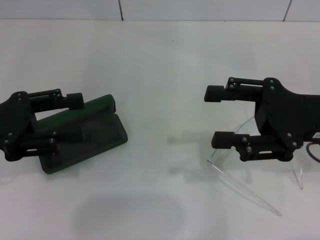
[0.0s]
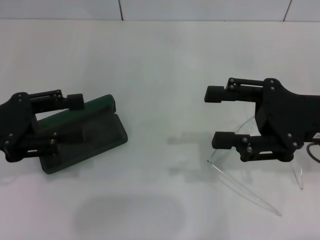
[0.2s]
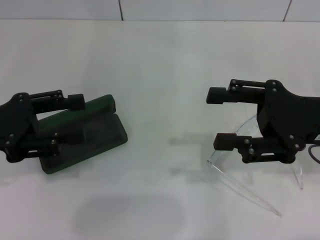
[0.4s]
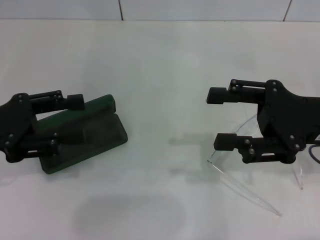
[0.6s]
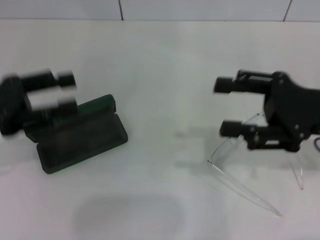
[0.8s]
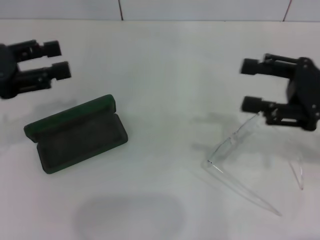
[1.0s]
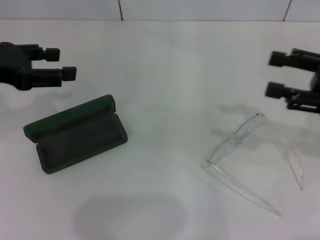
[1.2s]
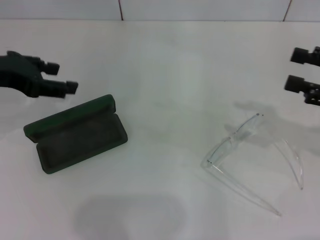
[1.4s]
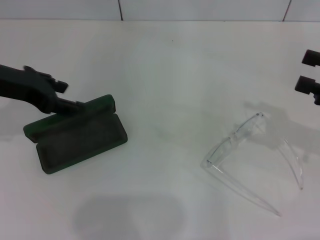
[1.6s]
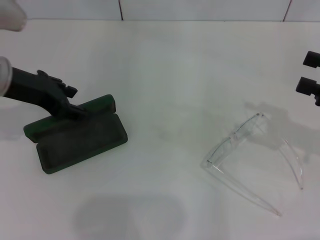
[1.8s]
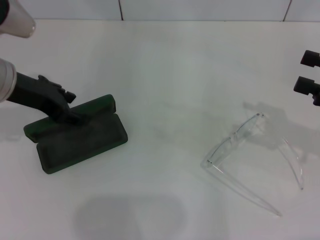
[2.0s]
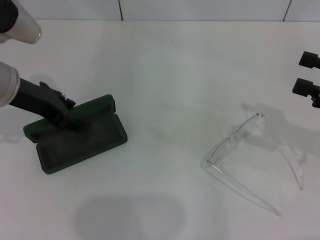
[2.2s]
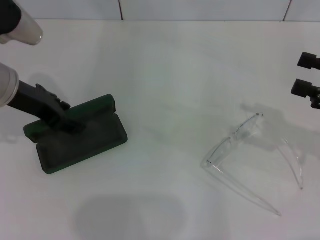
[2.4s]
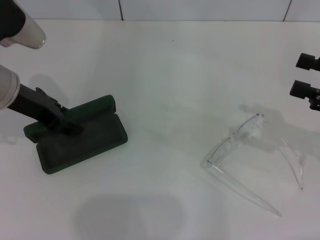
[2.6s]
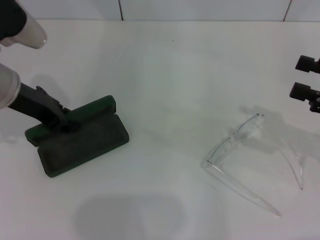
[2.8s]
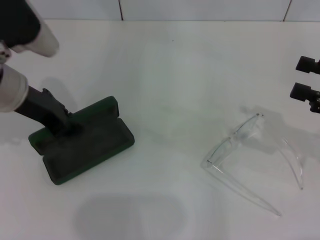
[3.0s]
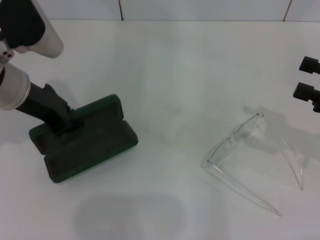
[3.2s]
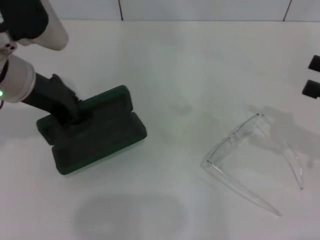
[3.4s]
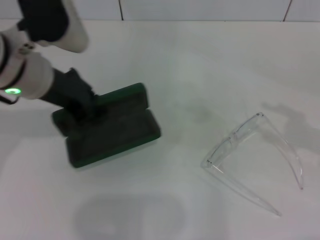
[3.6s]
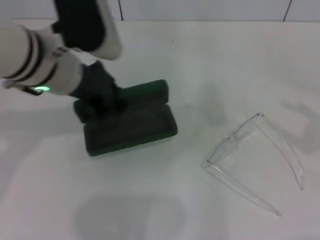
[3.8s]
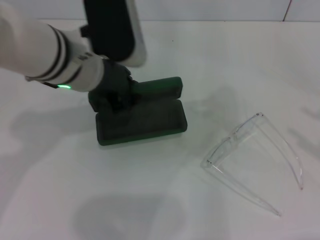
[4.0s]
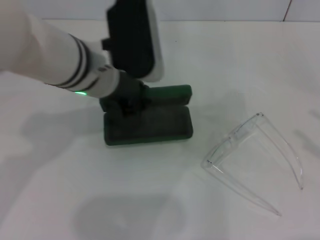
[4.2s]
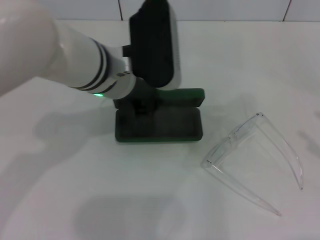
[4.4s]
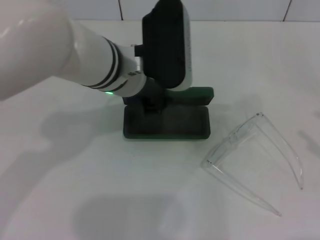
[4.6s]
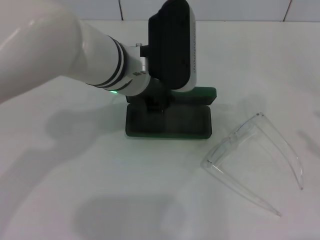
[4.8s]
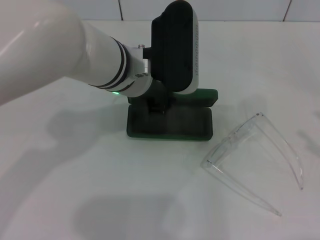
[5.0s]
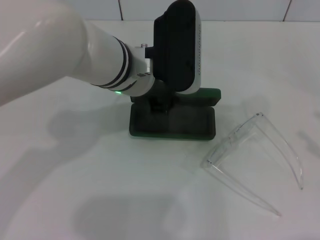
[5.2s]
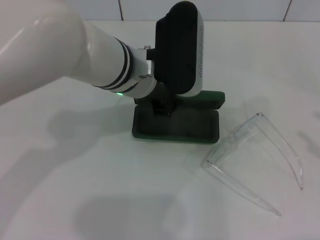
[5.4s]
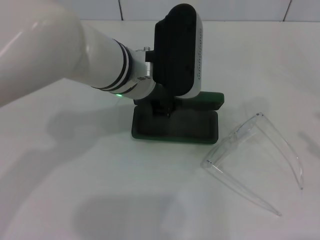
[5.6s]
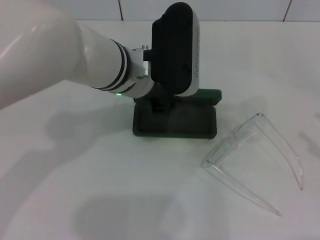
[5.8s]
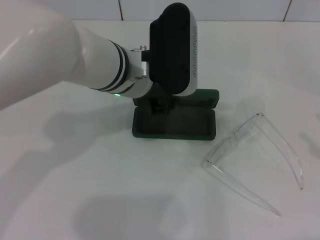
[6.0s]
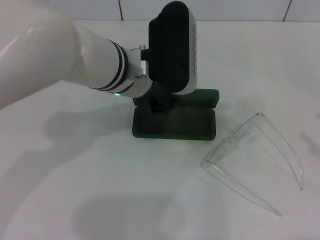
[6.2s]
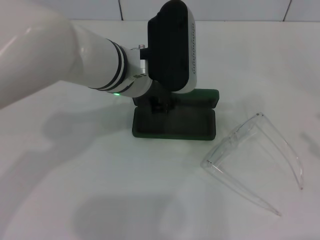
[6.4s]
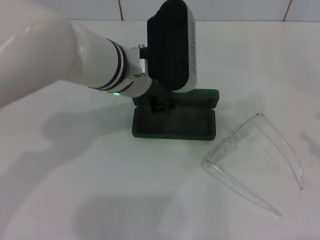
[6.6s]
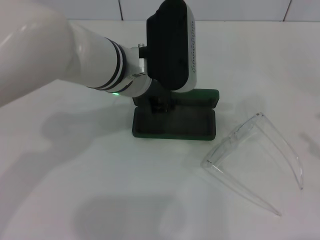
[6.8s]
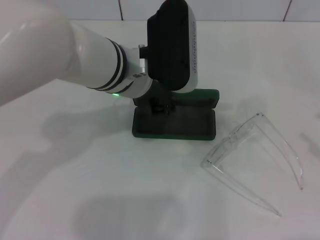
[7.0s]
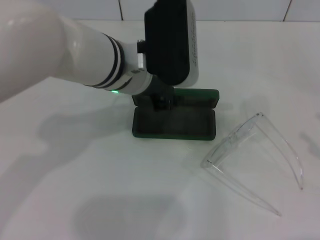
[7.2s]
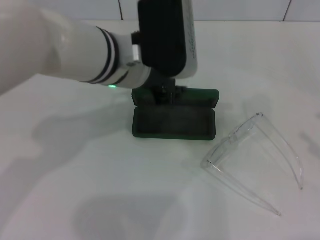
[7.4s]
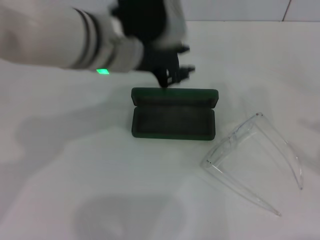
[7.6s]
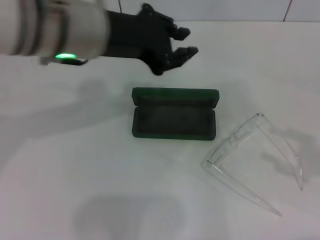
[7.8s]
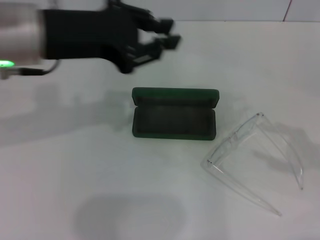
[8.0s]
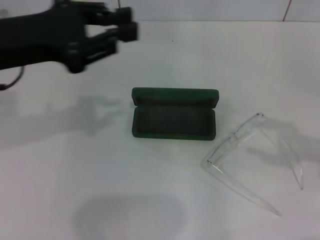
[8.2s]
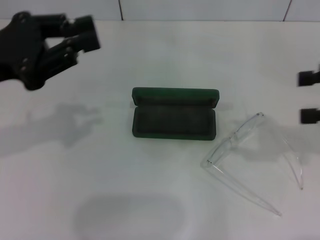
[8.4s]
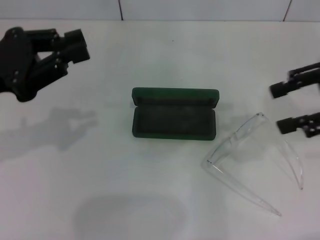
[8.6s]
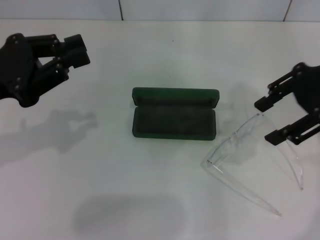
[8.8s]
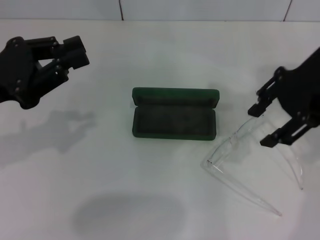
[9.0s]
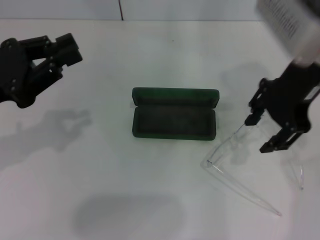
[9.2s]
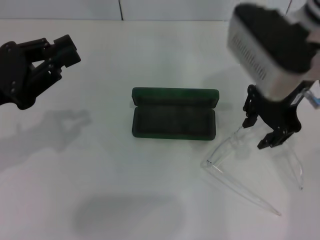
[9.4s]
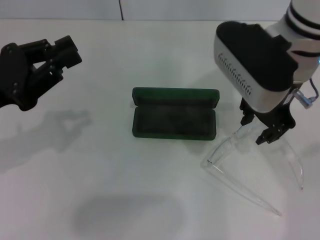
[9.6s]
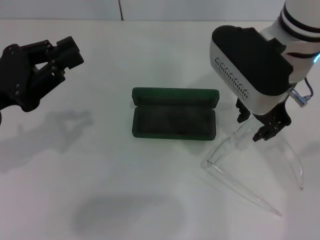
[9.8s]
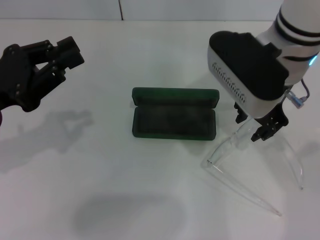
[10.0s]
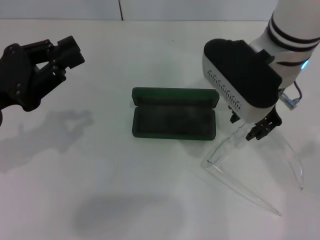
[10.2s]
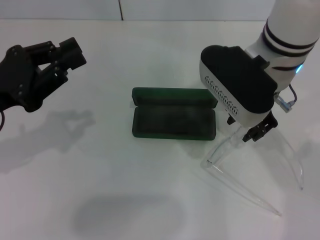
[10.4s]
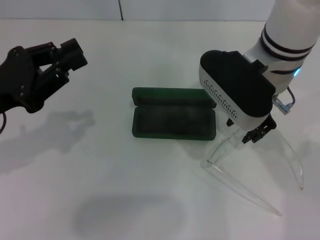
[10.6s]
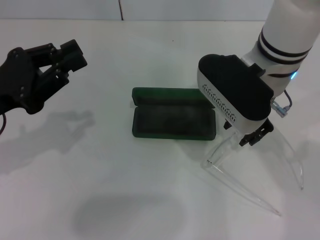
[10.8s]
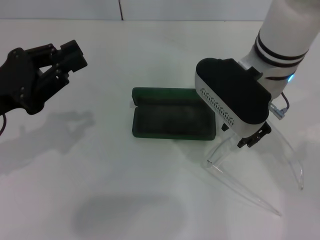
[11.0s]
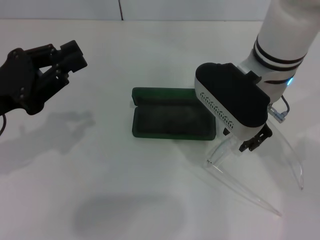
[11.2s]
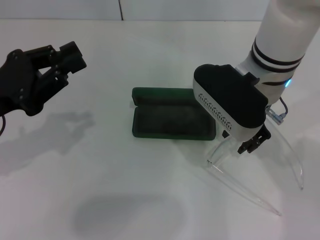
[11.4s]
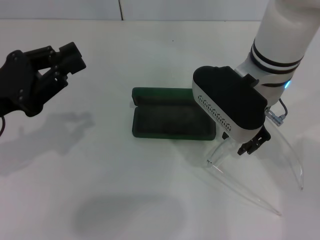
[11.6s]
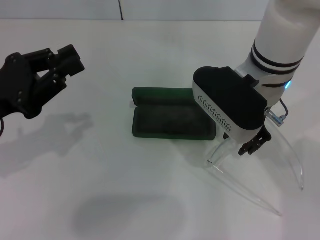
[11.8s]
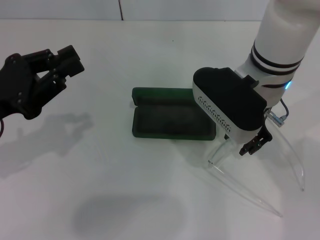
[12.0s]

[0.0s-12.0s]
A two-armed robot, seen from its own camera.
Step, 0.0s to 2.4s: Grab the glasses case with your left hand.
Step, 2.8s to 6.4s: Place the glasses case in the center of the table with your left hand.
0.0s to 1.6s: The left gripper travels forward by some 10 cm; the right gripper goes approximately 10 cm to the right.
1.6s to 3.0s: The left gripper closes up.
3.0s to 4.4s: The right gripper goes roughly 10 cm backward and to the right. Meanwhile the left gripper heads to the right, covering approximately 15 cm.
4.4s to 6.0s: The grippers stay close to where they were, moving slightly.
6.0s to 7.6s: The left gripper moves upward, roughly 5 cm.
7.6s to 9.0s: The right gripper travels to the left, forward and upward by about 30 cm, while the left gripper goes roughly 20 cm to the left.
9.0s to 10.4s: The right gripper shifts about 10 cm to the left and downward, and closes its fingers.
10.4s to 12.0s: There are only small adjustments of the grippers.

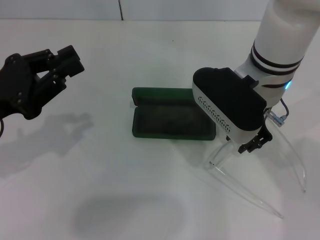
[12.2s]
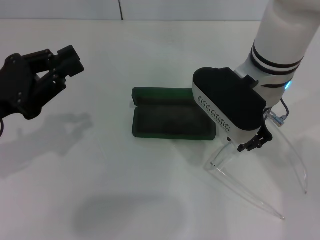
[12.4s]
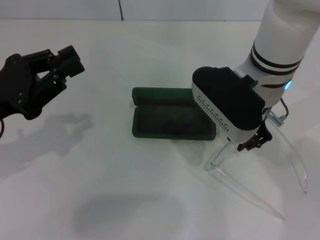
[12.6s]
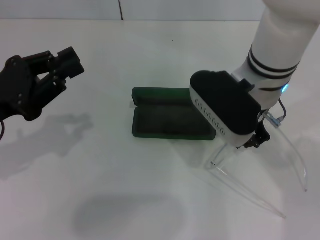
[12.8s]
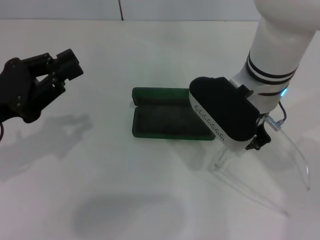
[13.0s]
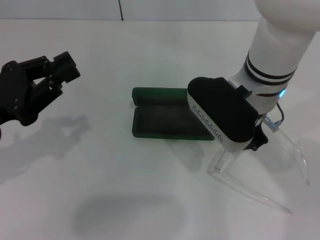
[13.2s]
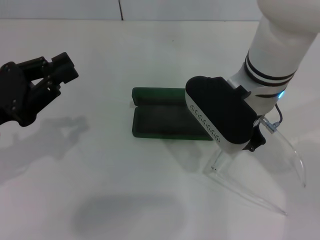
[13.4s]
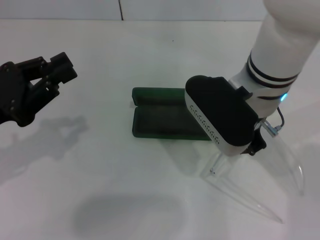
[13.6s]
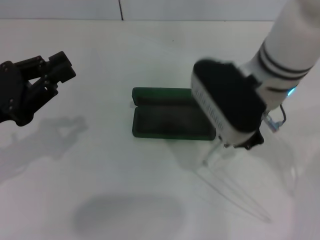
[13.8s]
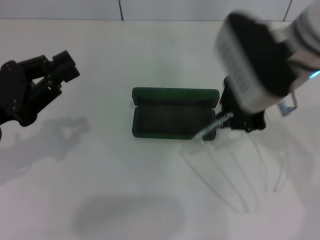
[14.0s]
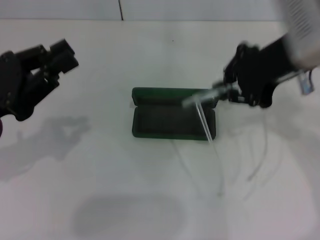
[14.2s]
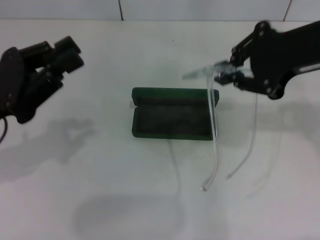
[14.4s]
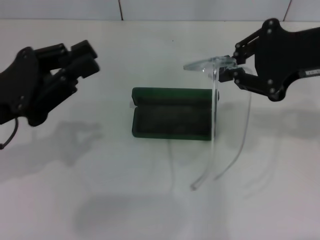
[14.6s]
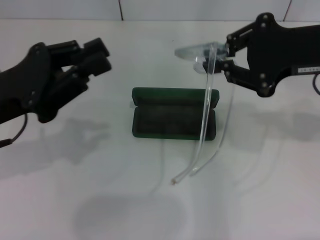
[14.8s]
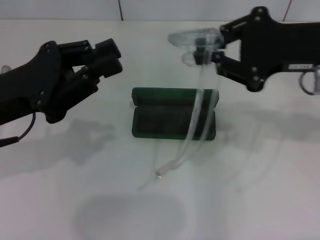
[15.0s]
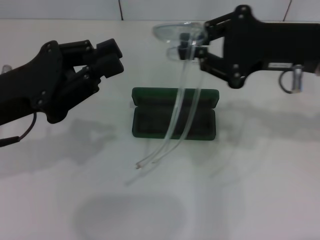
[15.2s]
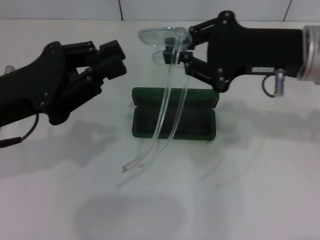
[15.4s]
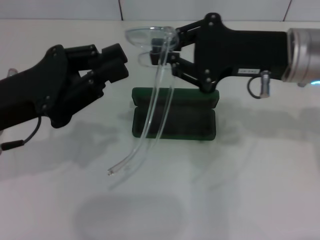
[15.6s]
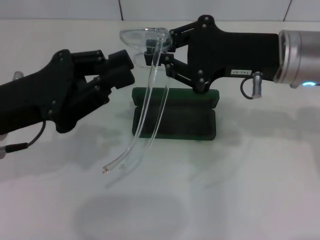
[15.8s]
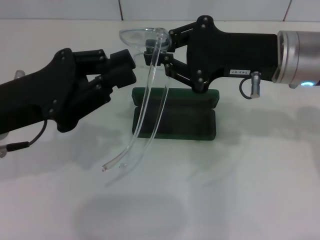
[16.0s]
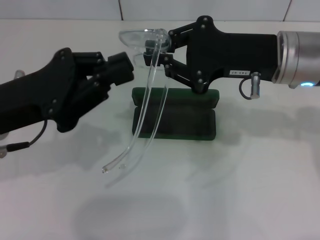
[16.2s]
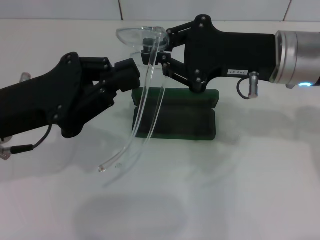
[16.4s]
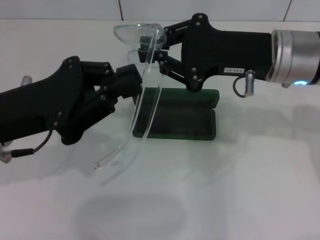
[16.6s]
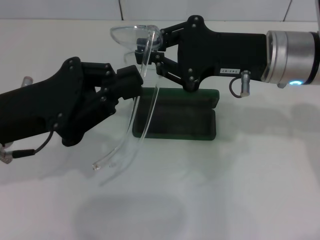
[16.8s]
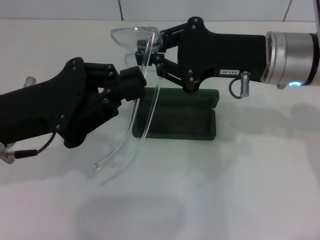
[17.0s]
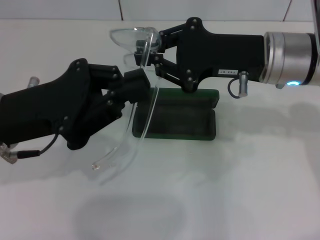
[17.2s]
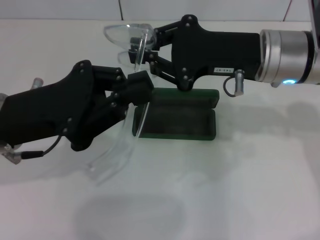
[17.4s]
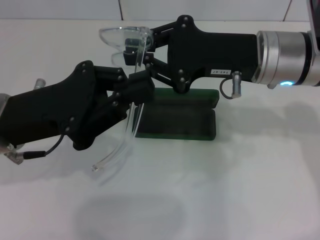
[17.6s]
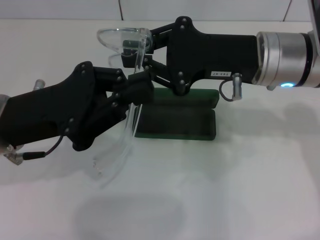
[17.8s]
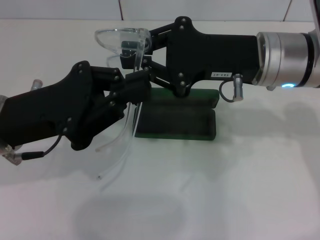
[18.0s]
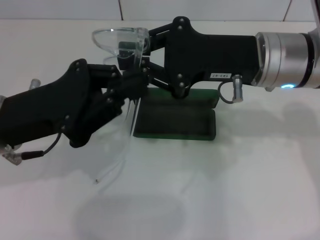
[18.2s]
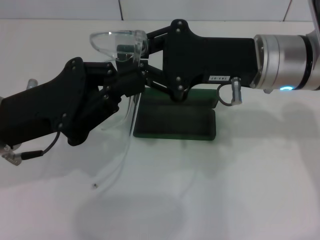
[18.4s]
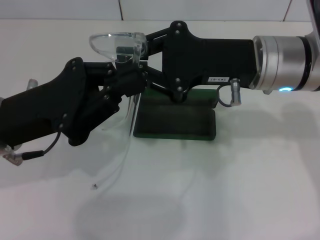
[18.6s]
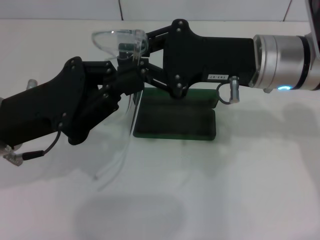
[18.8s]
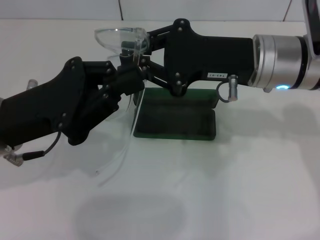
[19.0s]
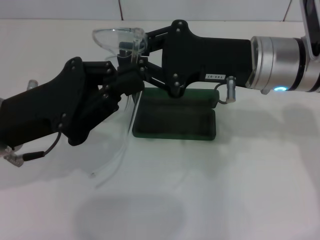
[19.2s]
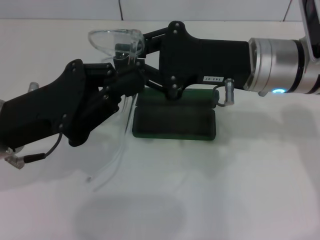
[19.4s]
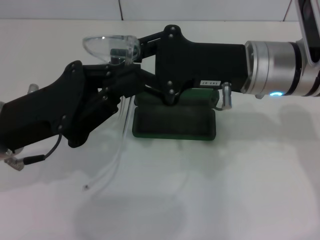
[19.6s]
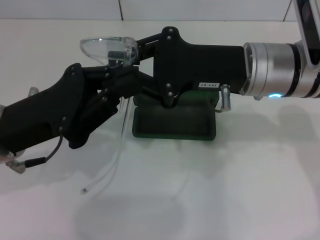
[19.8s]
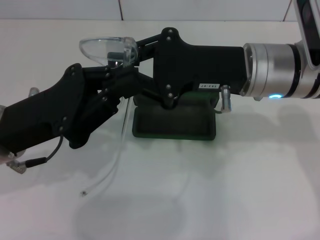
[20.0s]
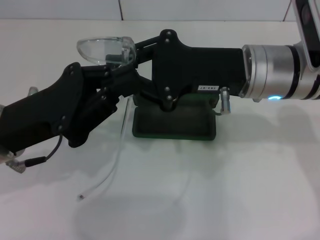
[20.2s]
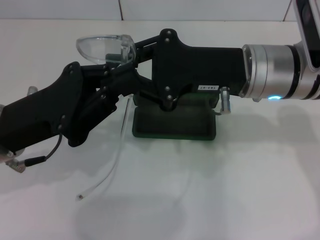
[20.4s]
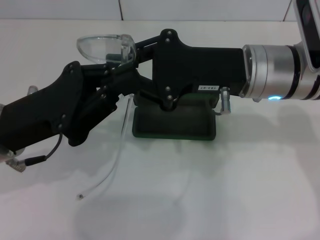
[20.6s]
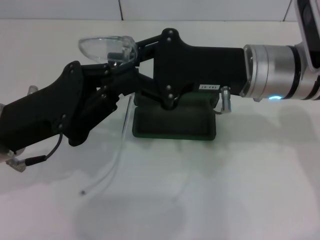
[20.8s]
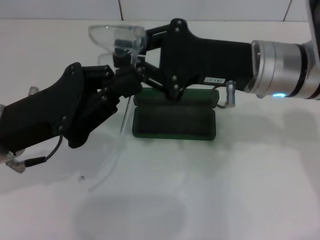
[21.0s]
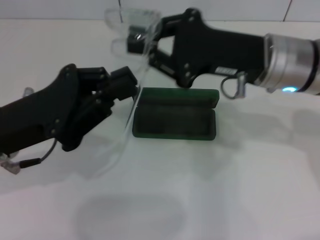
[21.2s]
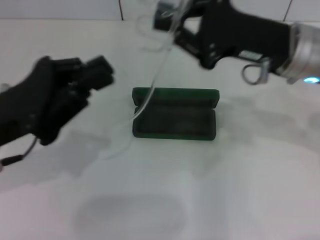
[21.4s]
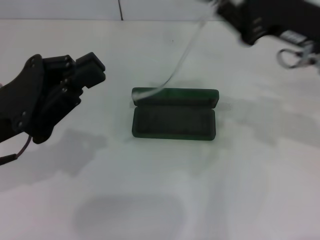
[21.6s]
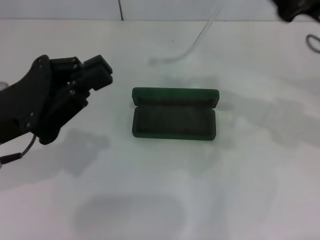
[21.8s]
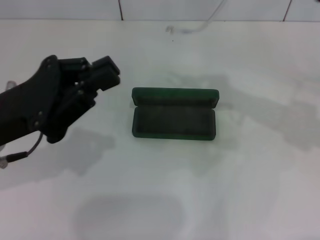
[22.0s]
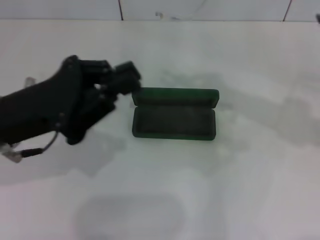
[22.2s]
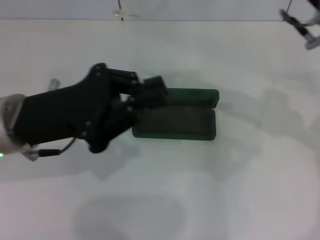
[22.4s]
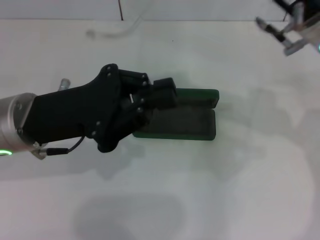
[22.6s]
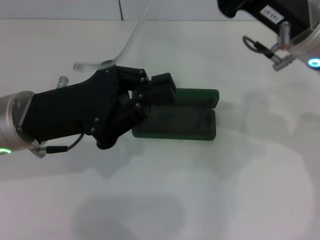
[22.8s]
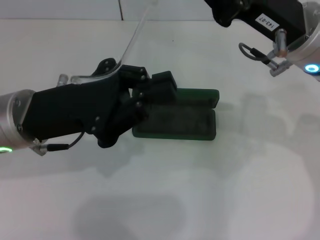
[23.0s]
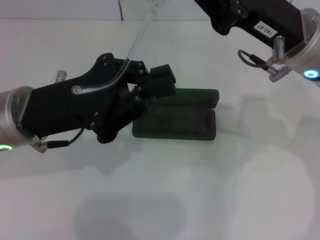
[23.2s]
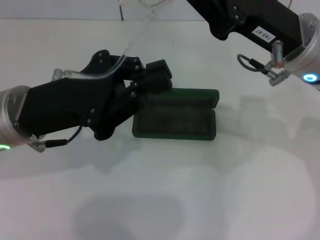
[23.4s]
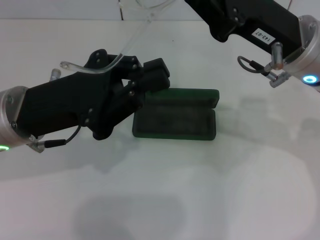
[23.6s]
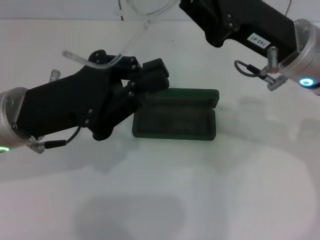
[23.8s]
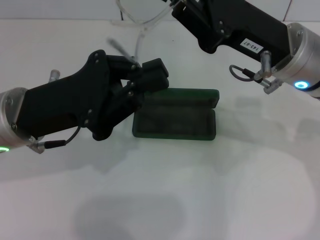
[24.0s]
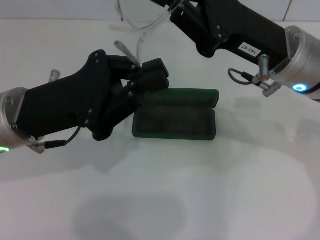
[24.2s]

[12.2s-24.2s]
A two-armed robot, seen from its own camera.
12.2s to 13.8s: The right gripper closes.
13.8s to 15.2s: The left gripper ends up roughly 5 cm from where it was; the right gripper travels to the right by some 10 cm.
15.2s to 16.6s: The right gripper shifts by roughly 5 cm.
16.6s to 21.2s: The grippers move only a little.
21.2s to 22.6s: The right gripper moves approximately 10 cm to the right and comes back.
